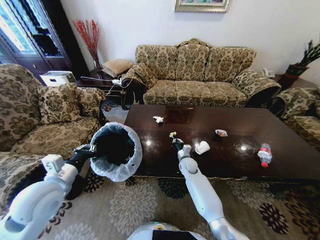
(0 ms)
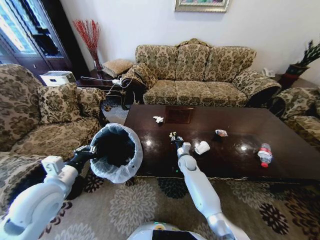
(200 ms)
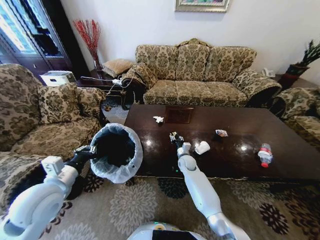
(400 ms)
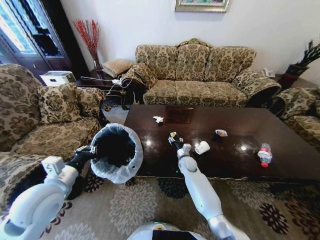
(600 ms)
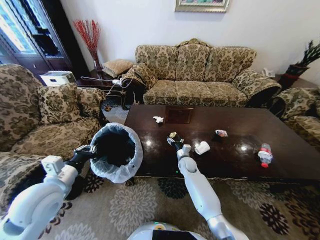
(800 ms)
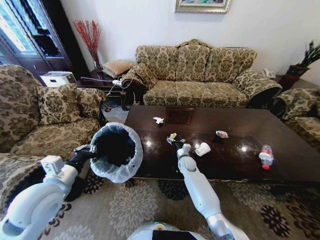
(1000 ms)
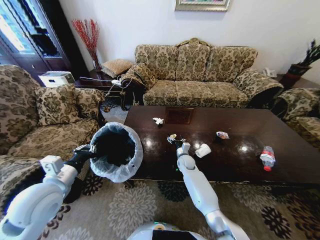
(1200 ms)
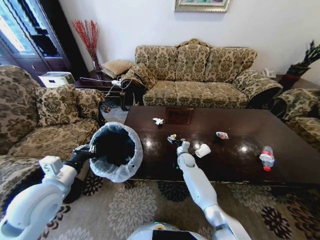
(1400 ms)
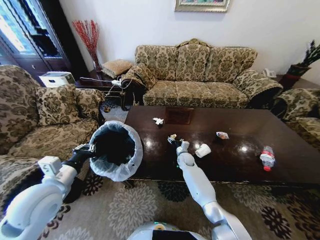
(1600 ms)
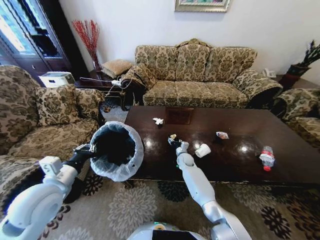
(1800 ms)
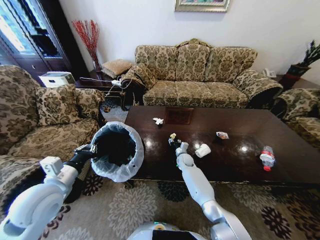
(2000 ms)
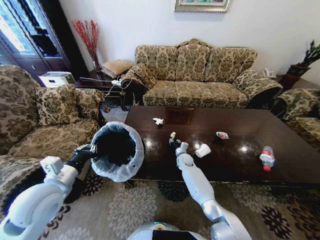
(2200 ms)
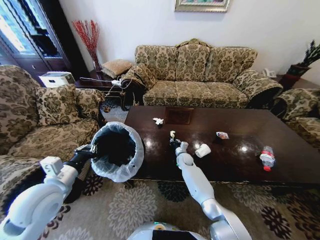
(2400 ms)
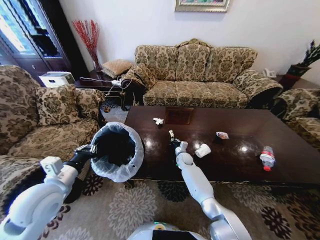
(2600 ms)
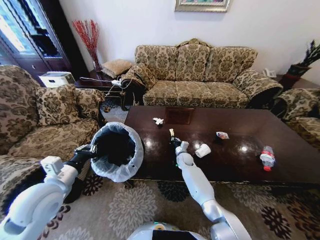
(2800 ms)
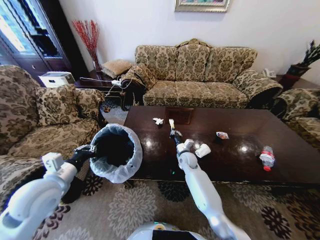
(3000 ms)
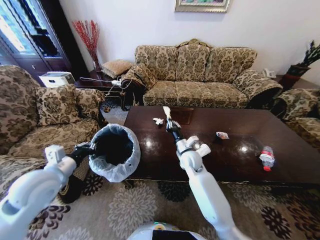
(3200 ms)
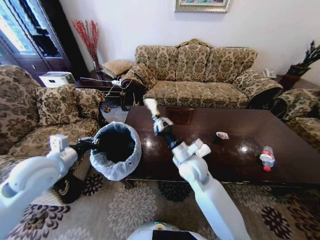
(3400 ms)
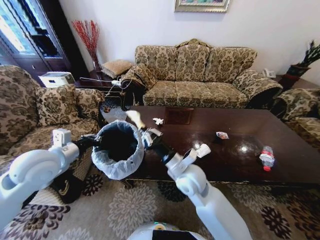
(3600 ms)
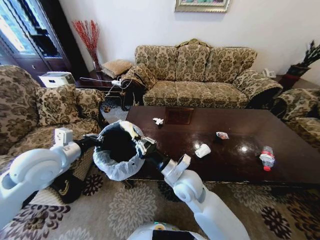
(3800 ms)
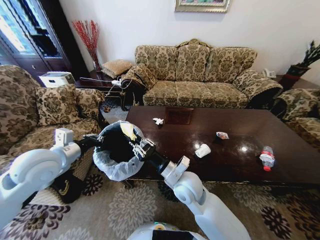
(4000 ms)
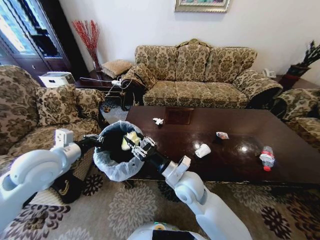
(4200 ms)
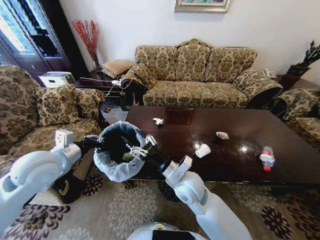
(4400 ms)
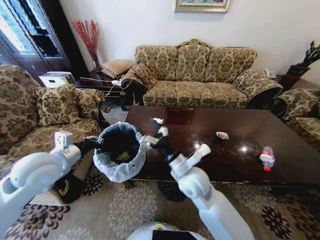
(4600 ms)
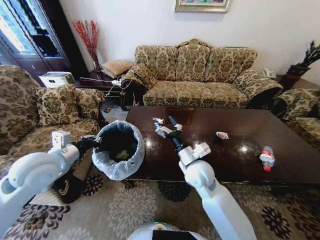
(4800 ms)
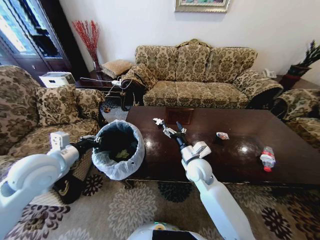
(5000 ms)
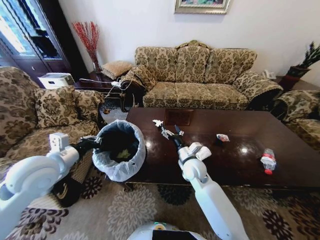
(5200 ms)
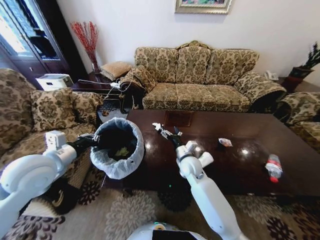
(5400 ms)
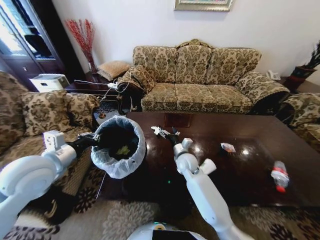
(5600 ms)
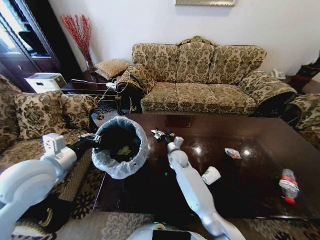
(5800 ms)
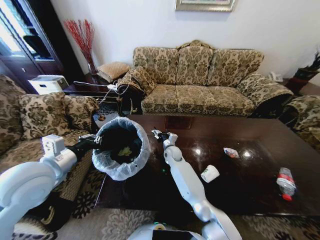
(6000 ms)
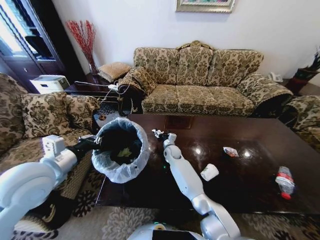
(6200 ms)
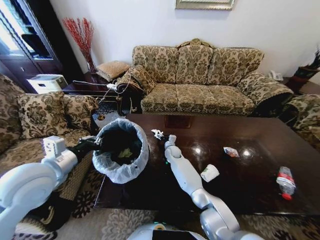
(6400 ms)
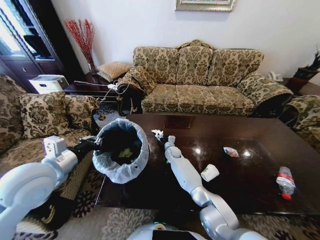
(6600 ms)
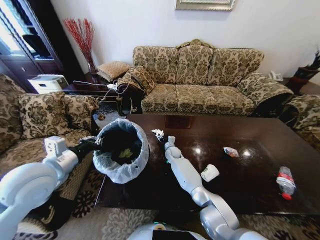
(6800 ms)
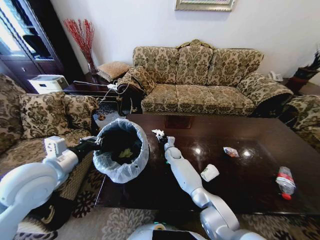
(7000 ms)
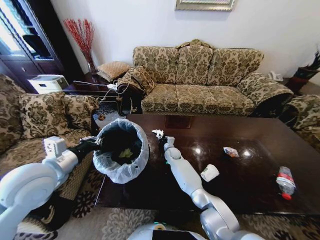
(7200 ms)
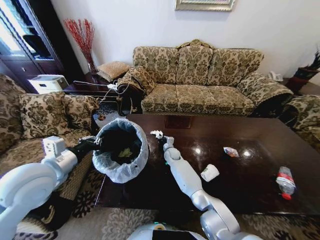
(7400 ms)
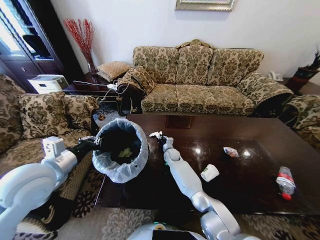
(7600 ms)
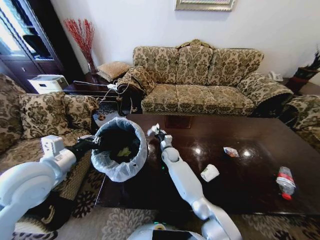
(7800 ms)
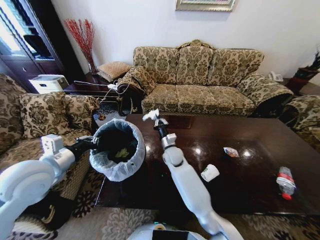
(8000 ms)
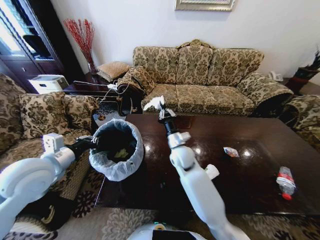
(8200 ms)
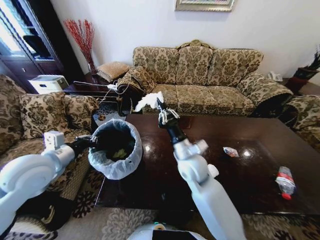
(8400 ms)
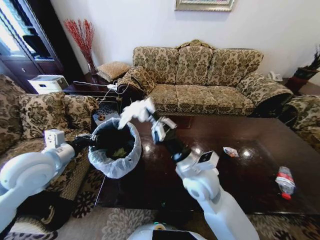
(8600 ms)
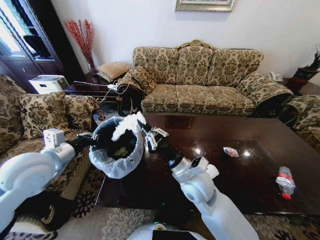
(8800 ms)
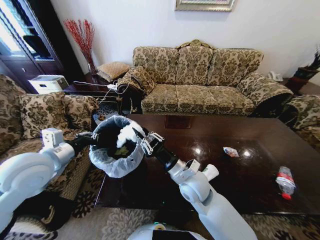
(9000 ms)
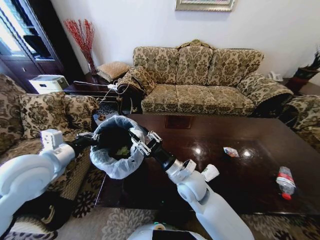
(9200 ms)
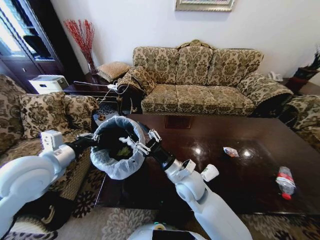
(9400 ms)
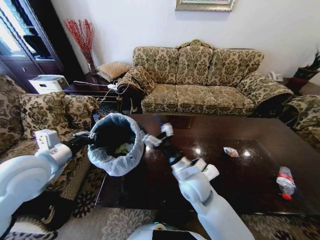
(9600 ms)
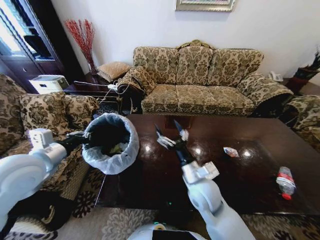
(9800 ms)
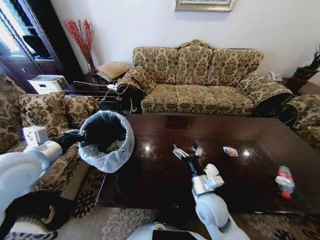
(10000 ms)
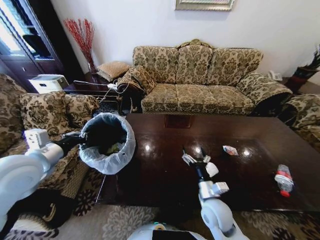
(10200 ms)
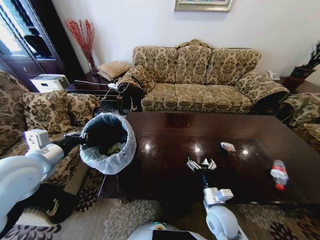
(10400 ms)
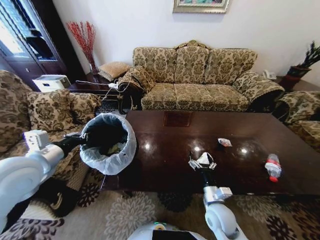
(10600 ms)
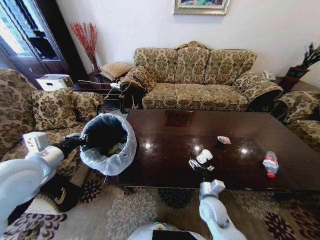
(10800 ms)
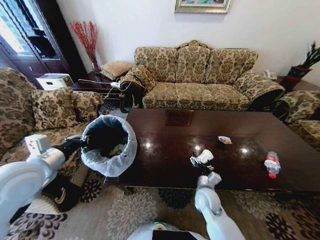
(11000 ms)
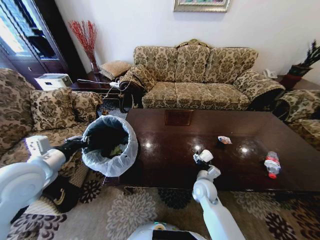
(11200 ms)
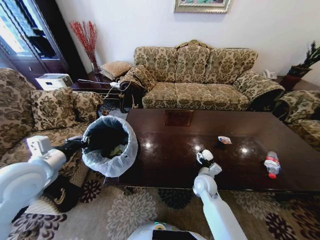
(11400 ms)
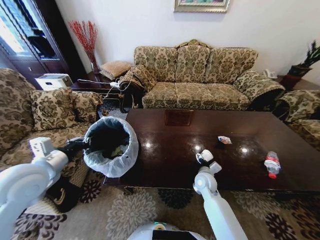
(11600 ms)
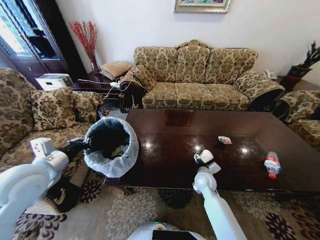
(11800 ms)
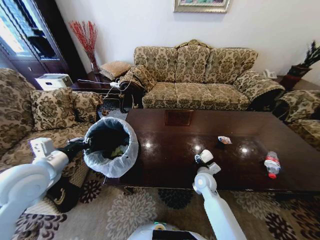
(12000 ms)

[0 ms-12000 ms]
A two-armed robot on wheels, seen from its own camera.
Task of the whole recording: Move to the front of the table and place the trash on the table into the trash bin.
0 ms to 1600 ms: The right gripper ends up approximately 5 cm from where it was, and opens its fingers.
1600 ms to 3000 ms: The right gripper travels upward by roughly 5 cm, and closes its fingers.
3000 ms to 4400 ms: The right gripper heads backward and upward, covering roughly 25 cm, and opens its fingers; the left gripper shifts approximately 10 cm upward and forward.
4400 ms to 6000 ms: The right gripper heads forward and downward, covering some 25 cm.
6000 ms to 7600 ms: The right gripper travels downward by approximately 5 cm, and closes.
7600 ms to 9000 ms: The right gripper heads backward and upward, covering approximately 30 cm.
9000 ms to 10400 ms: The right gripper is displaced downward, to the right and backward by roughly 20 cm, and opens up.
10400 ms to 12000 ms: The right gripper heads forward, covering roughly 15 cm.

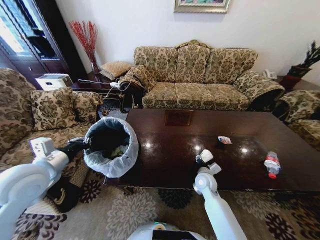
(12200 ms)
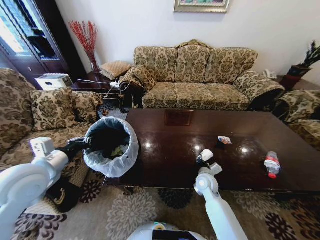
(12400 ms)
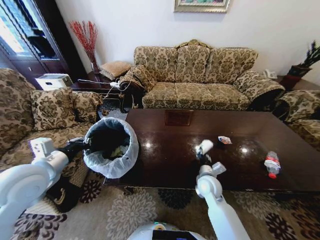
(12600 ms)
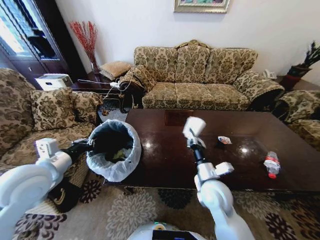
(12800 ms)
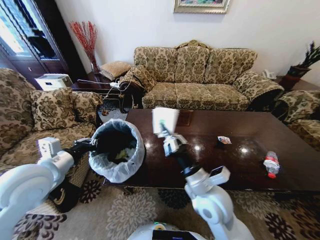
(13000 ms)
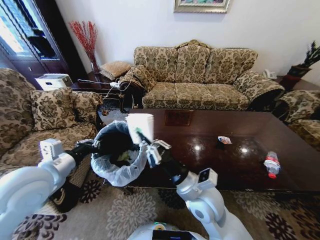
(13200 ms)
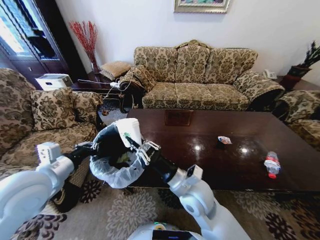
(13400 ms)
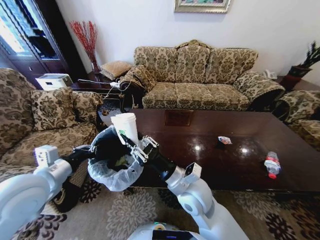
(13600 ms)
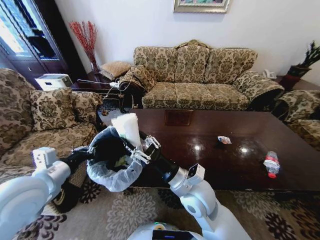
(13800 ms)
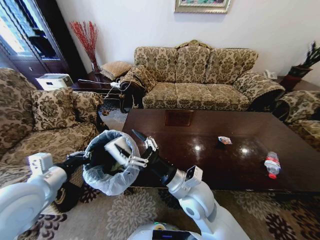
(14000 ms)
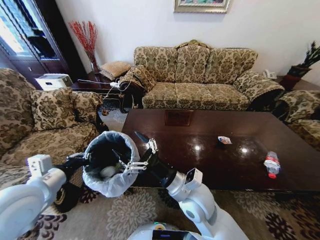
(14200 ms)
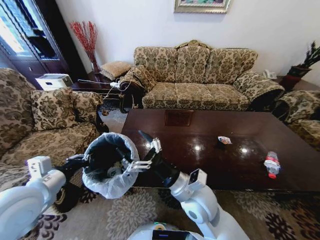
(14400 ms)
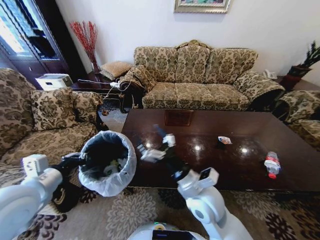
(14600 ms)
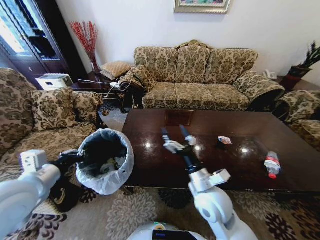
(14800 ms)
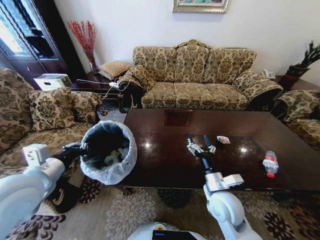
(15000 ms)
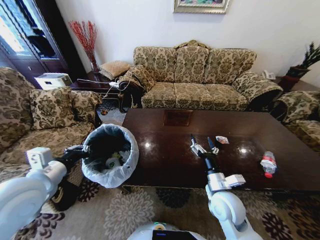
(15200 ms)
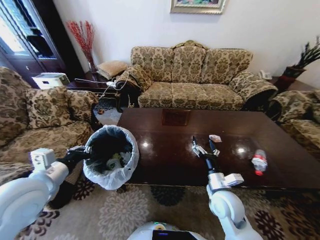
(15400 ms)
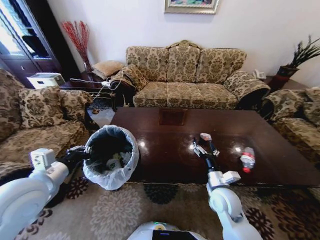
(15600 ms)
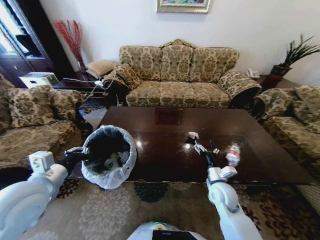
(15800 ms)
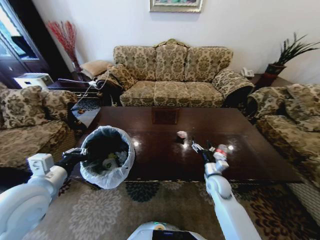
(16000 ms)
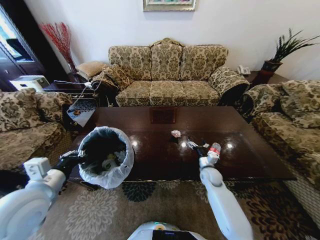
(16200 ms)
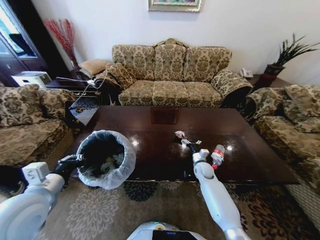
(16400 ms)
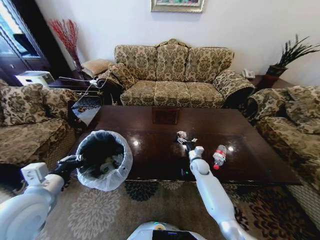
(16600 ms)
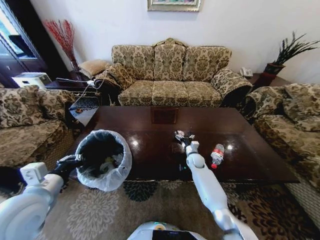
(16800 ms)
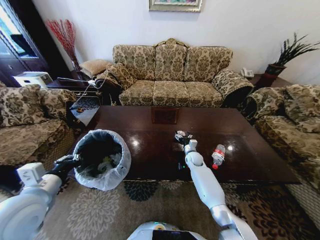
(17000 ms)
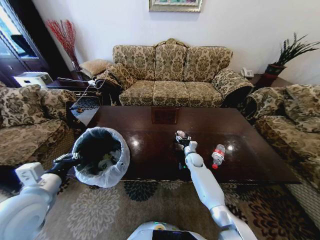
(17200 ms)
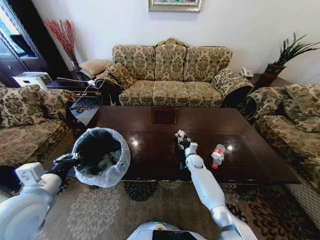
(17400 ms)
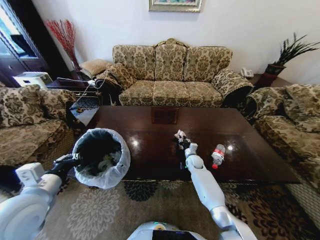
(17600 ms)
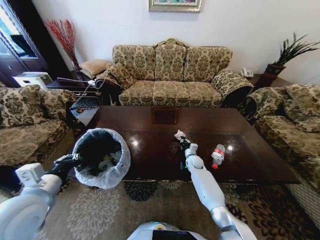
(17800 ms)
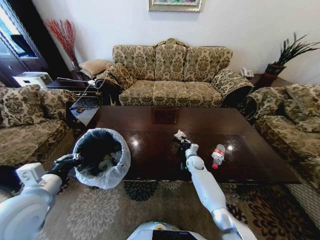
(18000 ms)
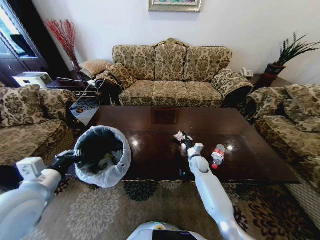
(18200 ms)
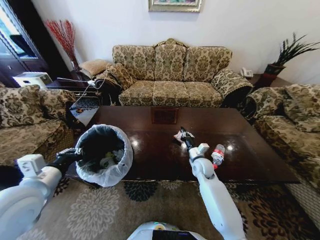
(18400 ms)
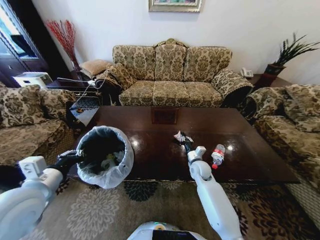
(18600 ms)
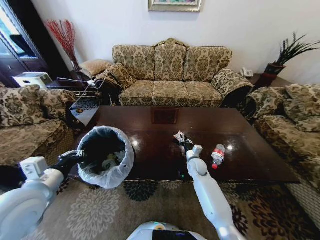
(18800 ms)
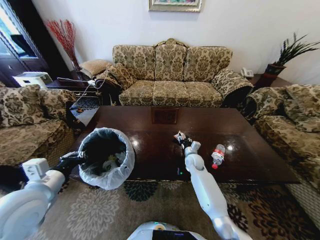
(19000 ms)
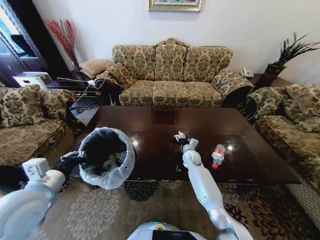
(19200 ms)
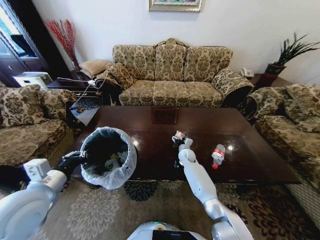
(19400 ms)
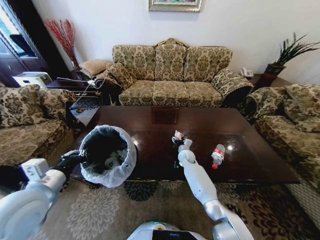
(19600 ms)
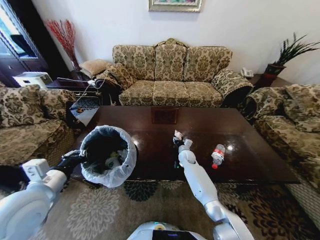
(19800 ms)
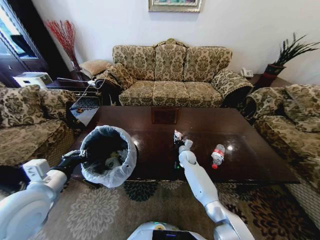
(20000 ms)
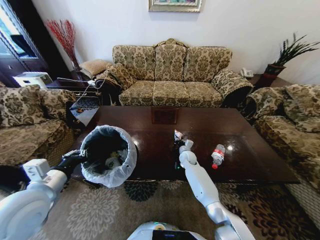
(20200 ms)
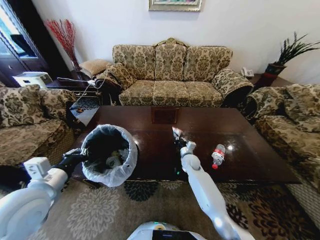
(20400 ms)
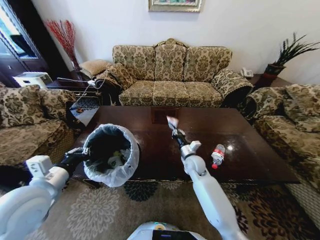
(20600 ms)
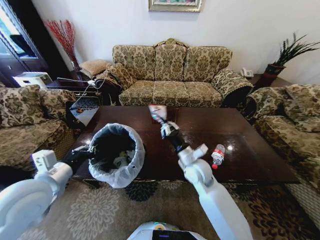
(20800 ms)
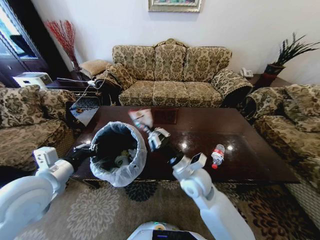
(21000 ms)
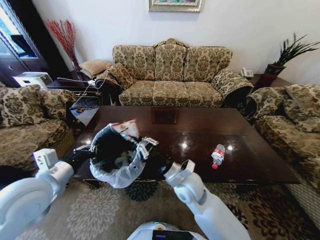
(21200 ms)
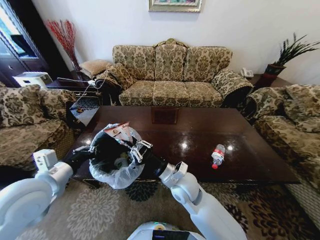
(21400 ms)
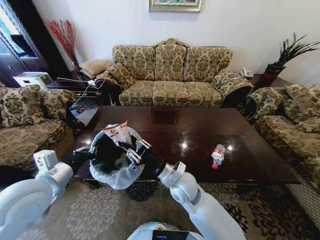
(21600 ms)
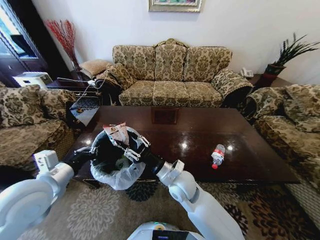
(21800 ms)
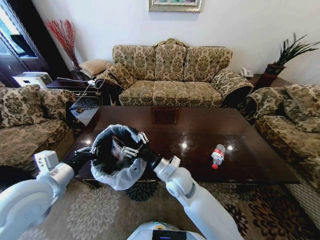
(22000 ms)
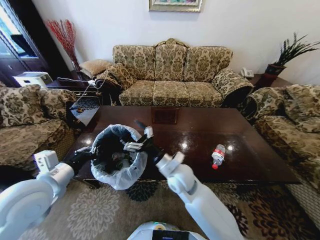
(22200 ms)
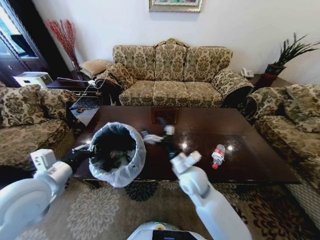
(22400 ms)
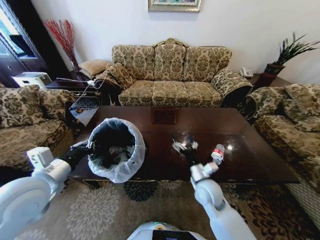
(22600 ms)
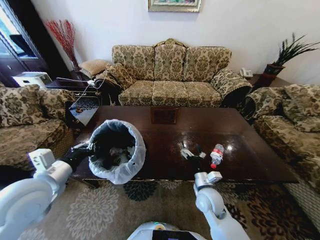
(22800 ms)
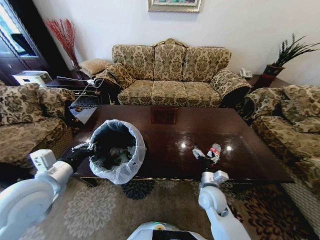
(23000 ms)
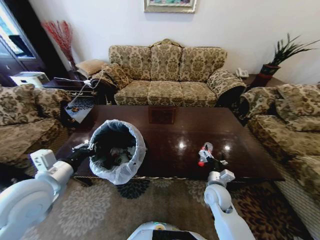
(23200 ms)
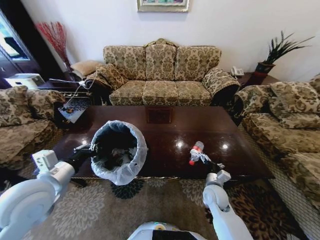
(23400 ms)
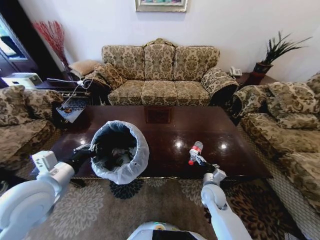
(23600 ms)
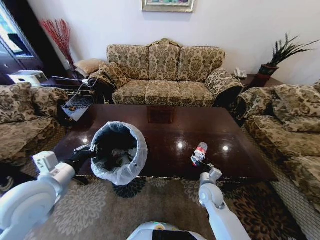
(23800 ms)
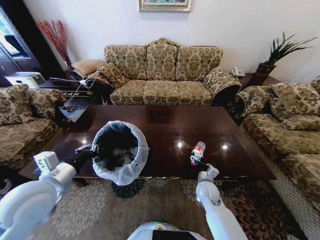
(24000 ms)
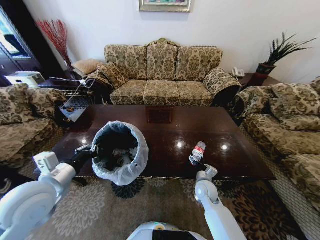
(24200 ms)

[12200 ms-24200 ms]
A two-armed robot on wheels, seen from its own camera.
Task of the whole recording: Move to the front of the table and place the trash on the table into the trash bin.
12200 ms to 13800 ms: The right gripper heads upward, to the left and backward, covering approximately 25 cm, and closes, then opens again.
13800 ms to 15200 ms: The right gripper moves to the right and downward, roughly 15 cm, and opens up.
15200 ms to 16600 ms: The right gripper is displaced forward and downward by approximately 25 cm.
16600 ms to 18200 ms: The right gripper closes up.
18200 ms to 19800 ms: The right gripper shifts roughly 10 cm forward and to the left, and opens.
19800 ms to 21200 ms: The right gripper moves backward and upward, roughly 30 cm, and closes up.
21200 ms to 22600 ms: The right gripper moves to the right and downward, approximately 10 cm, and opens its fingers.
22600 ms to 24200 ms: The right gripper is displaced downward by roughly 10 cm.
